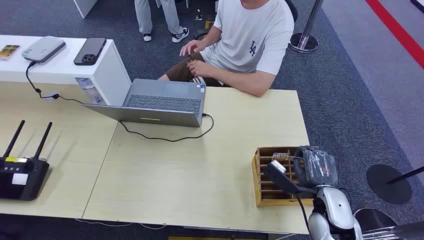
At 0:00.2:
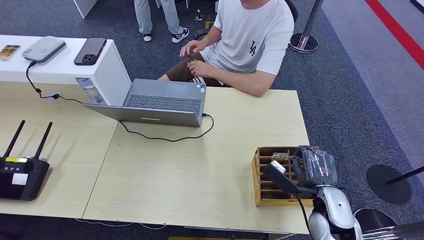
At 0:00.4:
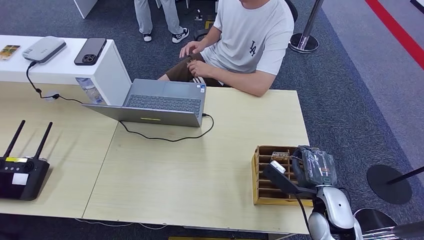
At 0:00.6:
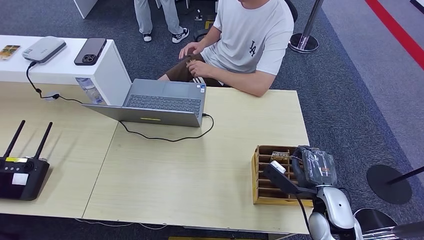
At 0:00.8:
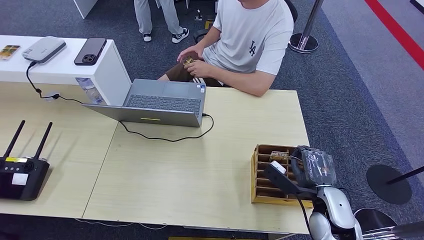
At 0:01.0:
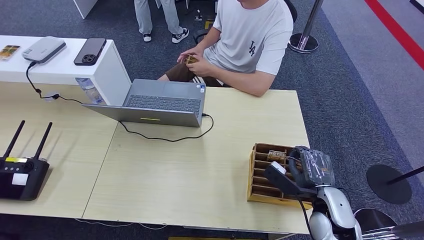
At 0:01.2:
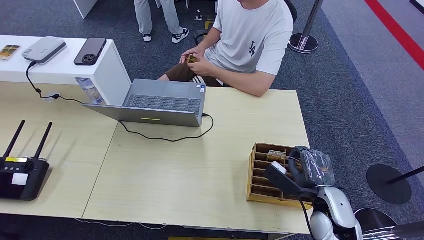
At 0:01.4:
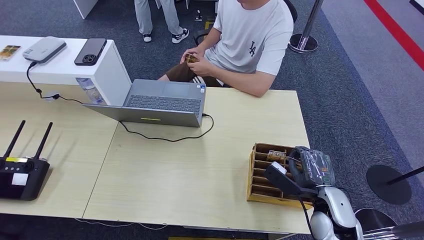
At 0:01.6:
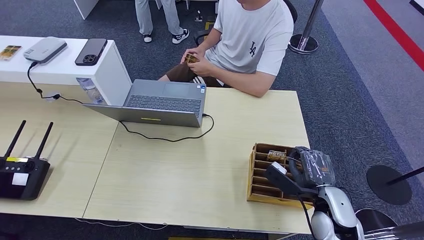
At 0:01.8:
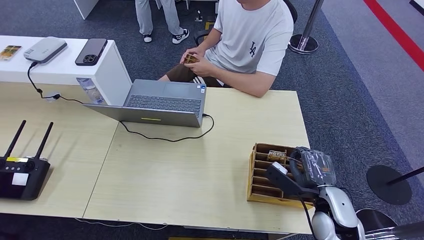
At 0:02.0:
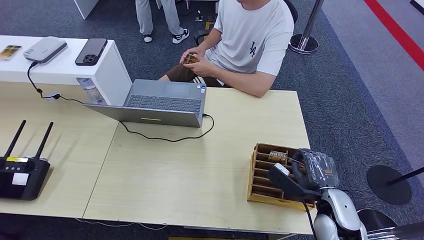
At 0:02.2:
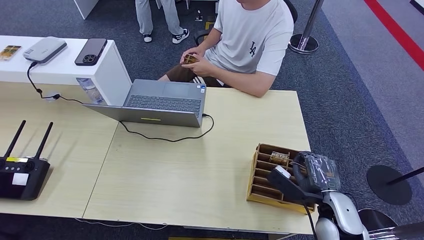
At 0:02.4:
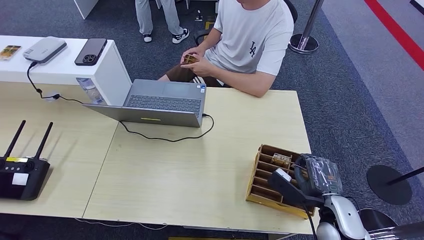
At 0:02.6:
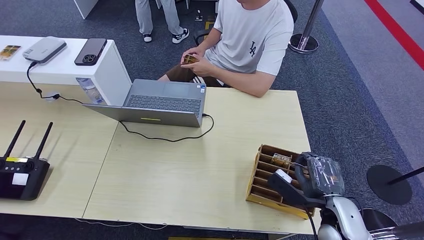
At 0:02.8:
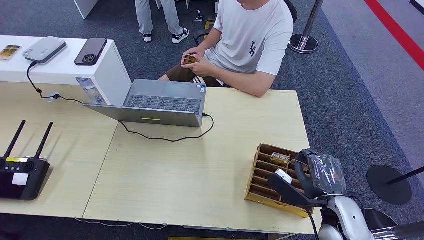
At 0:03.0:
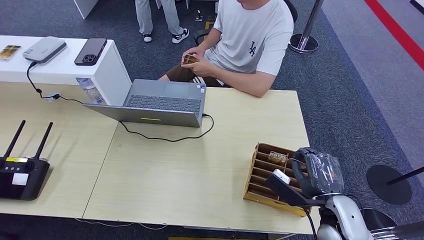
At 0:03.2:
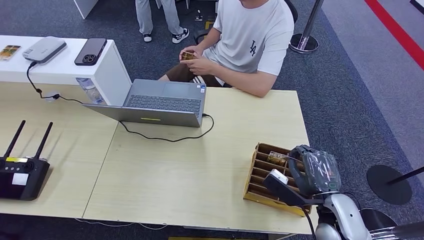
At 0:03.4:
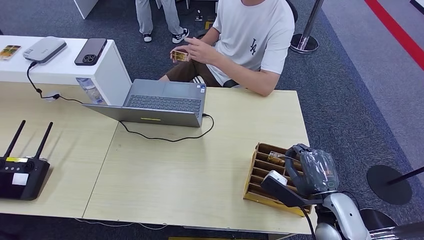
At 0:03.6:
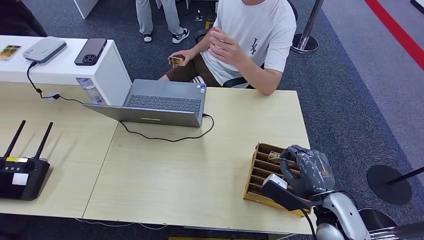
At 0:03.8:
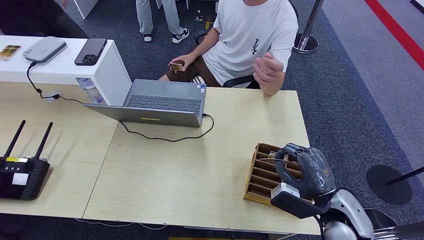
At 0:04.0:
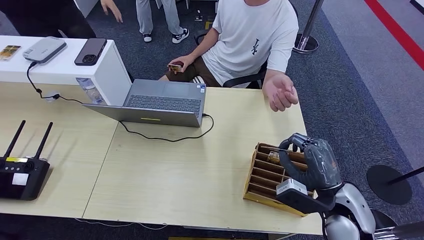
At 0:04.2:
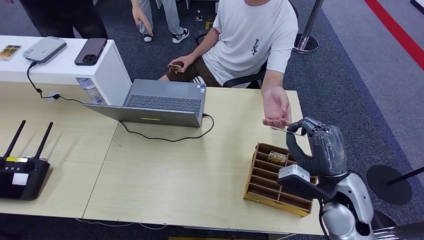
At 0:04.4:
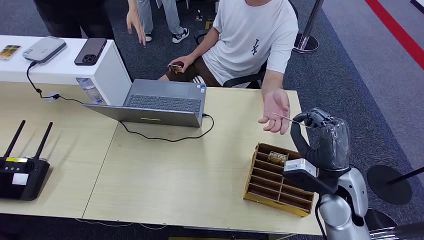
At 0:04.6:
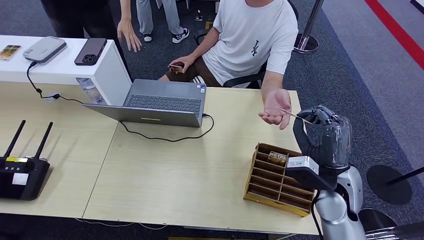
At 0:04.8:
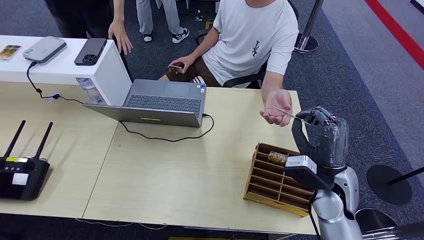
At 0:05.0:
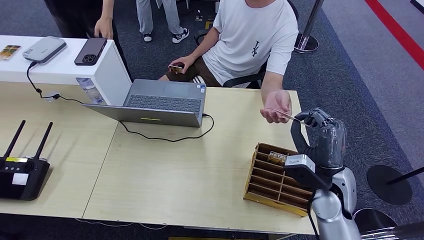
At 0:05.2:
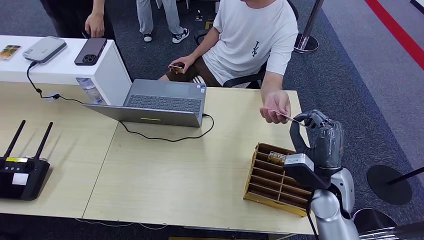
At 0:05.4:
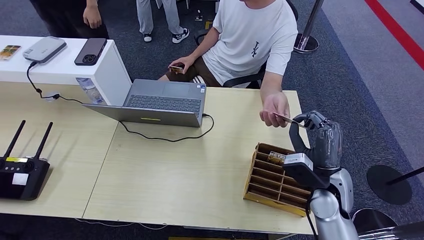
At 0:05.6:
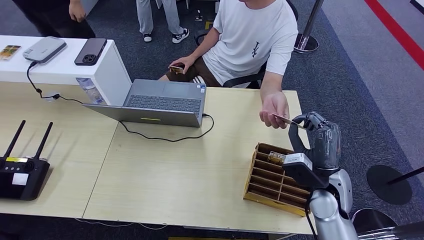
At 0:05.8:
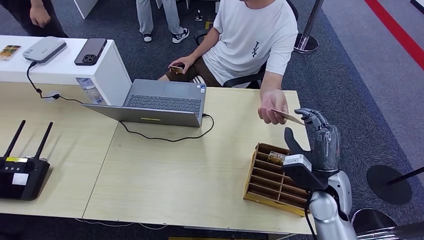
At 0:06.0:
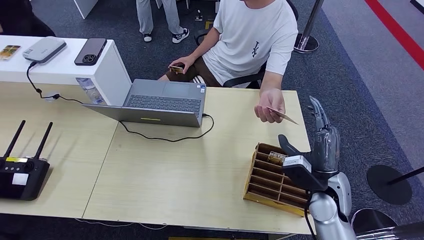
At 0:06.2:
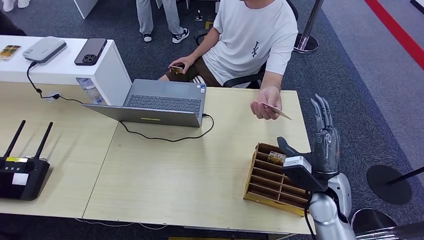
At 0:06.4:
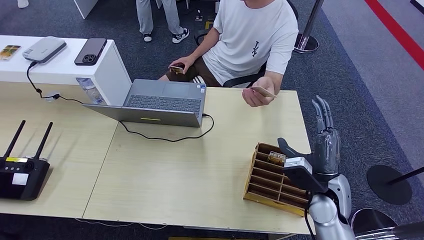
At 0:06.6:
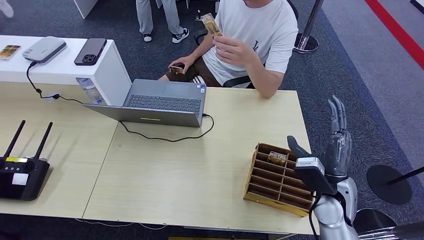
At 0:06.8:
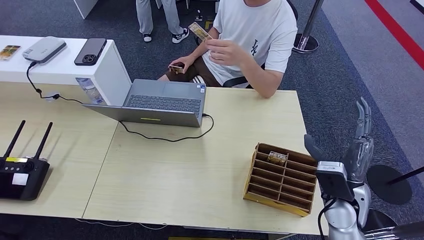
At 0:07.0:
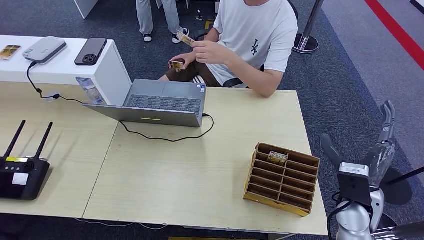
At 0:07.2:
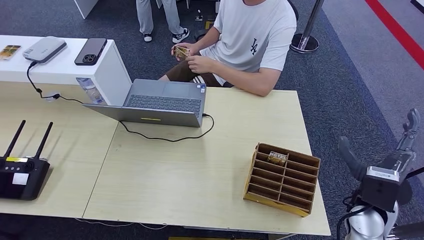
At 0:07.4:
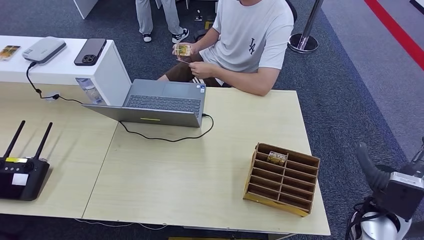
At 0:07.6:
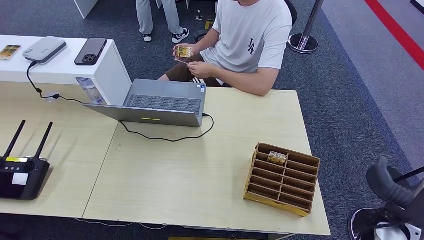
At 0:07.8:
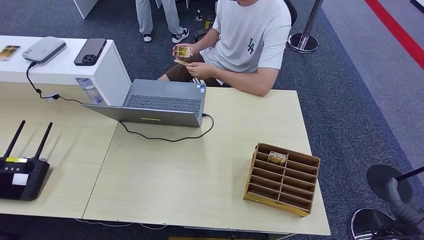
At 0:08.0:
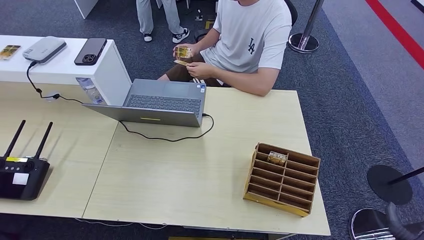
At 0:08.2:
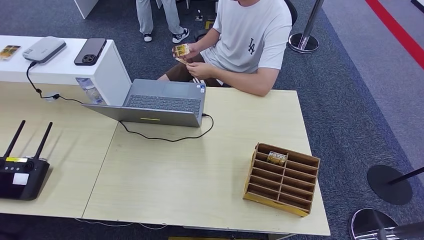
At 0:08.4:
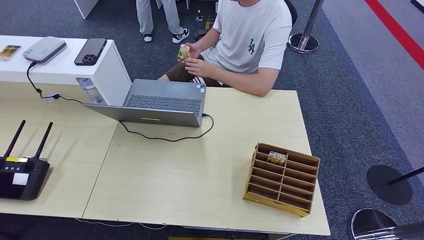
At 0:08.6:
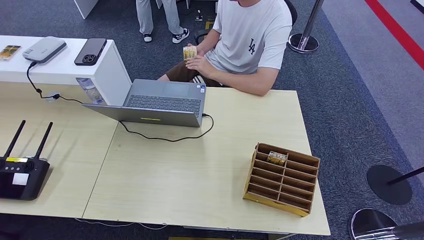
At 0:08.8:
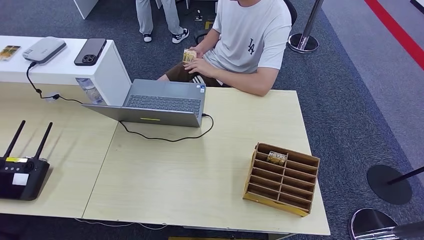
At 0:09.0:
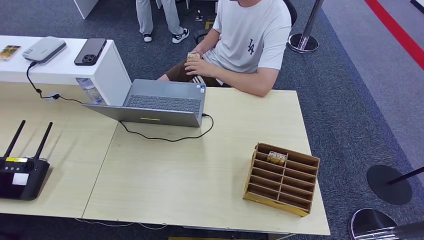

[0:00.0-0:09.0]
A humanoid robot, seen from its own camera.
Step, 0:00.0 to 0:03.8: Pick up the key card from the card box.
Step, 0:04.0 to 0:09.0: Hand the key card to the target.
0:01.6 to 0:03.0: The hands stay close to where they were, moving slightly.
0:03.0 to 0:04.4: The right hand travels upward and forward by about 5 cm.
0:04.4 to 0:06.0: The hands stay close to where they were, moving slightly.
0:06.0 to 0:07.6: The right hand moves to the right and backward, some 15 cm.
0:07.6 to 0:09.0: The right hand shifts roughly 30 cm downward and backward.

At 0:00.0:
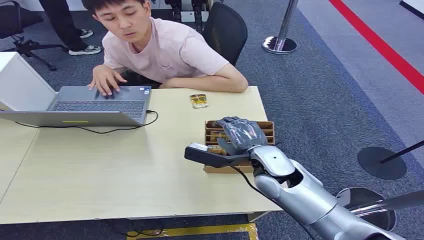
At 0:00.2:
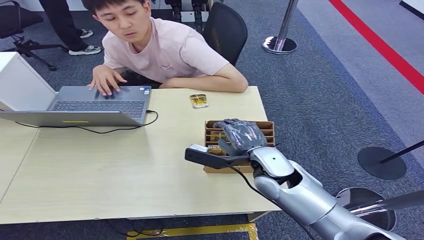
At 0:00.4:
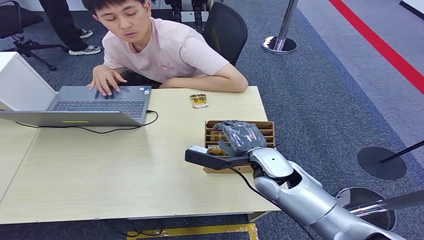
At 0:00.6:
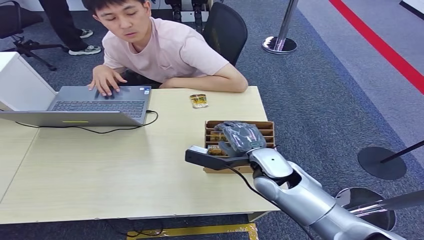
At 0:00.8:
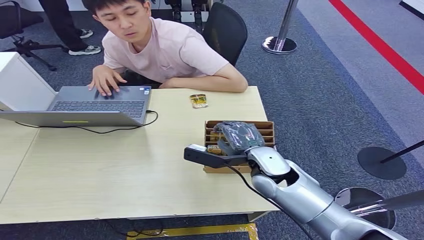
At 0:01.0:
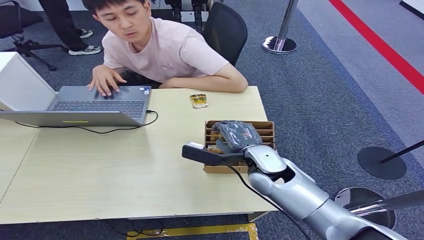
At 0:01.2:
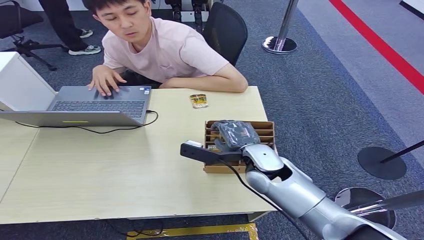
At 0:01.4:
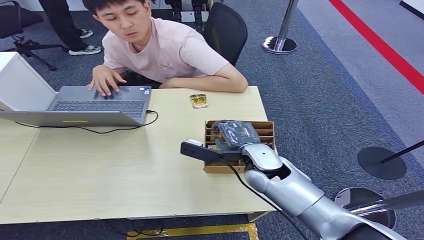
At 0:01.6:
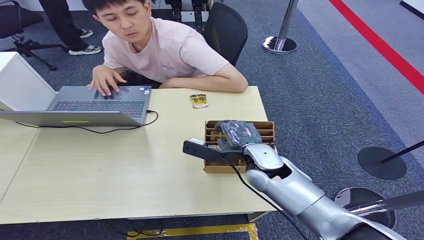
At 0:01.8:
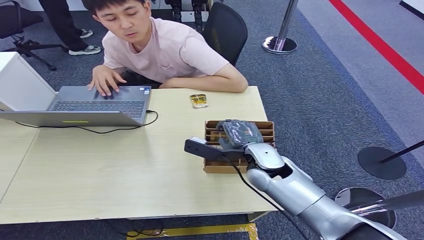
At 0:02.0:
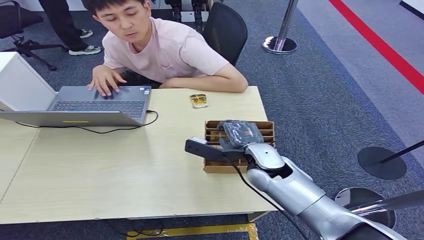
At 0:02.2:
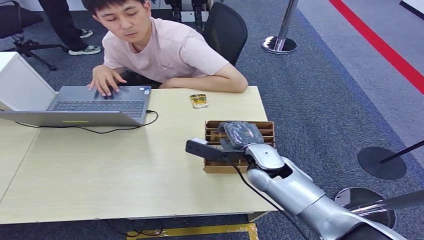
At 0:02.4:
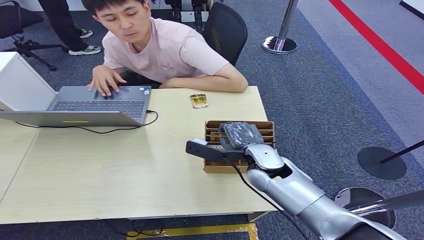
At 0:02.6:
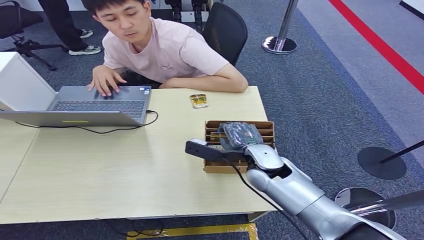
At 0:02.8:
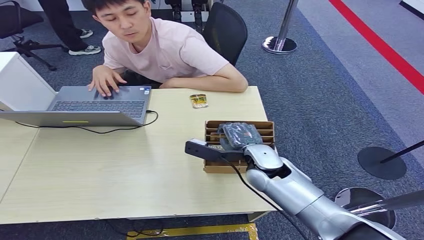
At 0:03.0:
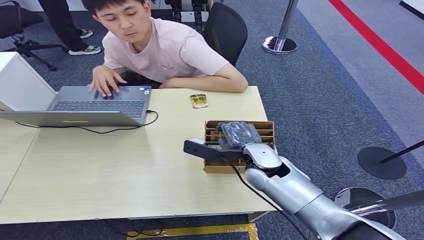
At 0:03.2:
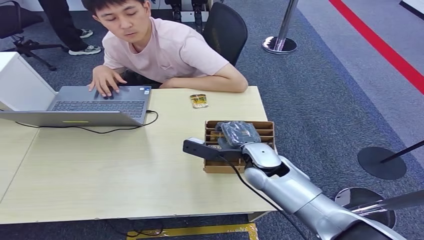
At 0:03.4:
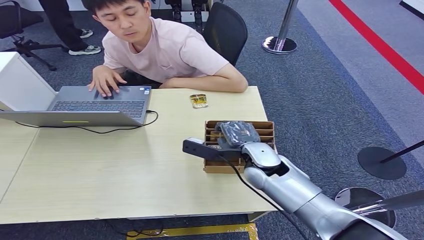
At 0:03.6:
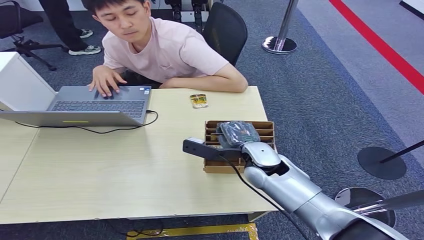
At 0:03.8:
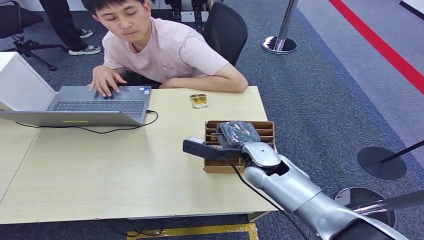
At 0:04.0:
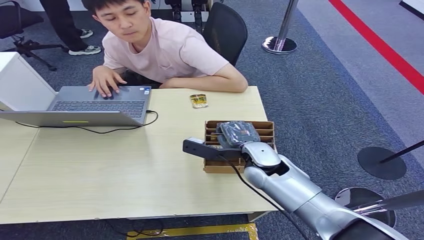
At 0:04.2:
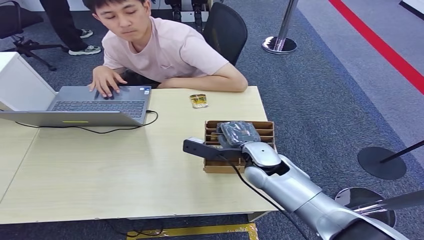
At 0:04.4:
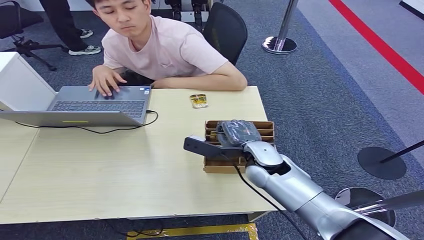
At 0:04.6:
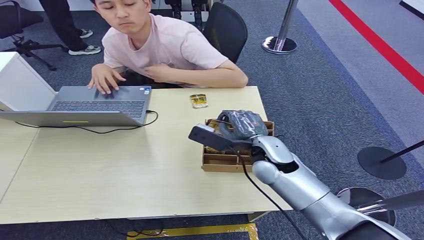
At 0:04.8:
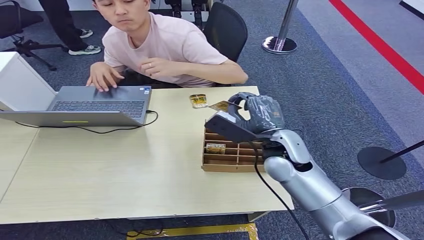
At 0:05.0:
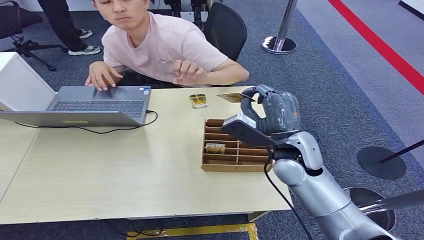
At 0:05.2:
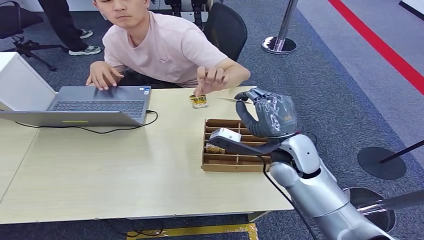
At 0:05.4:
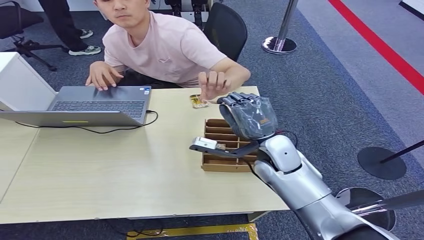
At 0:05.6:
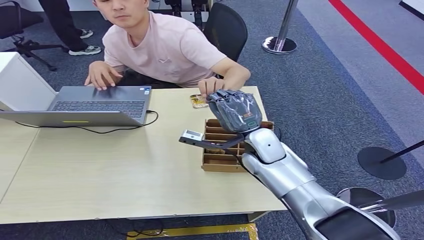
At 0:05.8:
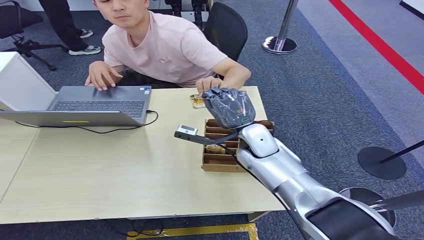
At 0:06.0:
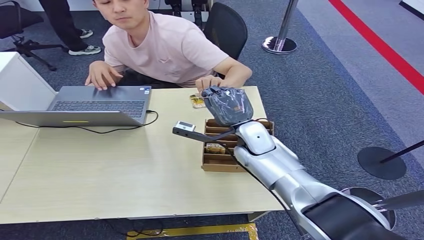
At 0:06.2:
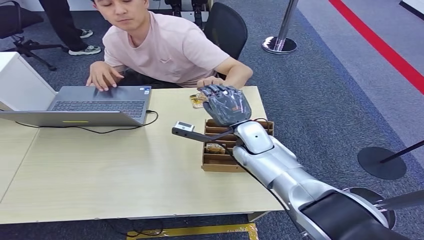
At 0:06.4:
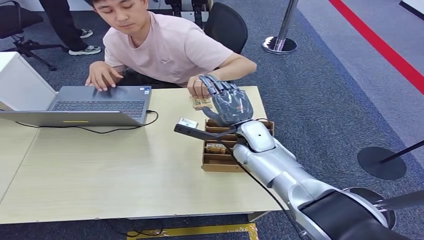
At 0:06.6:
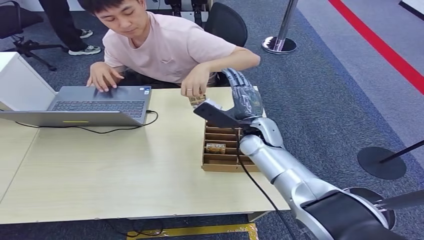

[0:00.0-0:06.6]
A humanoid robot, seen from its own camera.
Step, 0:00.0 to 0:04.4: Pick up the key card from the card box.
Step, 0:04.6 to 0:06.6: Hand the key card to the target.
0:01.6 to 0:03.2: Both hands stay about where they are.
0:03.2 to 0:05.0: The right hand goes about 10 cm upward and to the right.
0:05.0 to 0:06.6: The right hand moves forward, roughly 10 cm.
